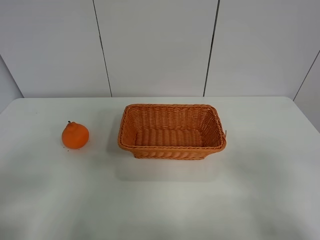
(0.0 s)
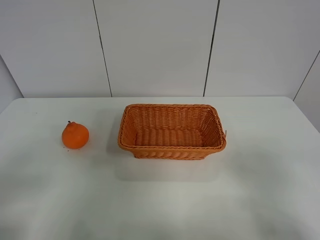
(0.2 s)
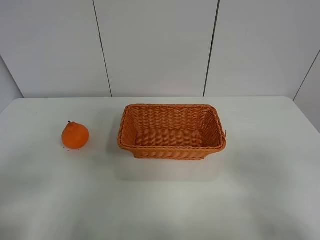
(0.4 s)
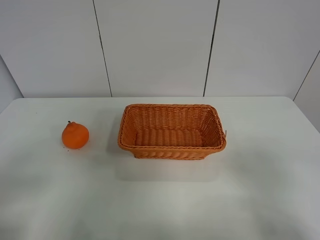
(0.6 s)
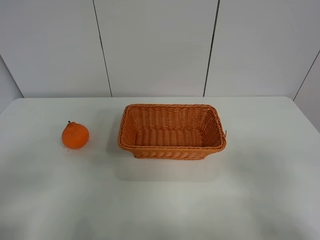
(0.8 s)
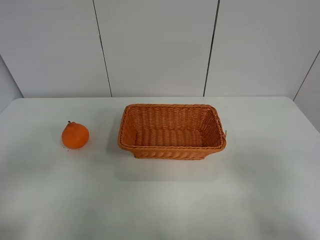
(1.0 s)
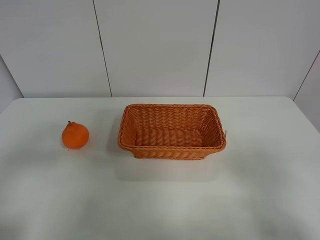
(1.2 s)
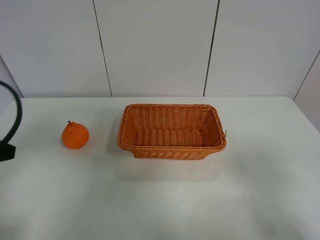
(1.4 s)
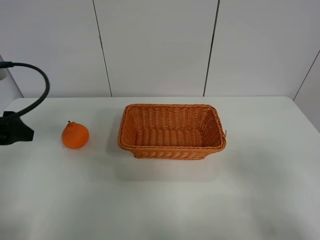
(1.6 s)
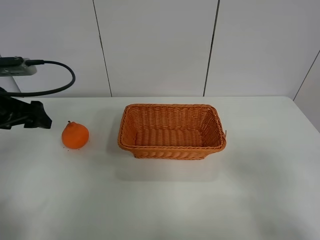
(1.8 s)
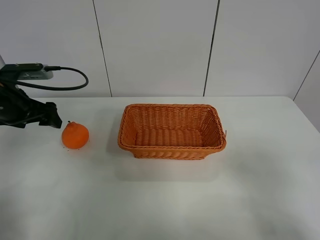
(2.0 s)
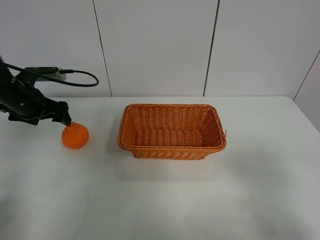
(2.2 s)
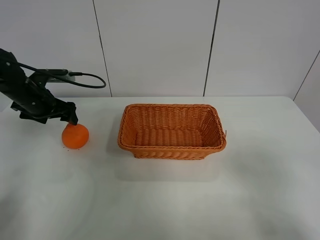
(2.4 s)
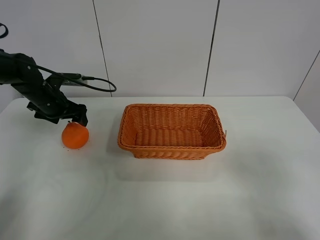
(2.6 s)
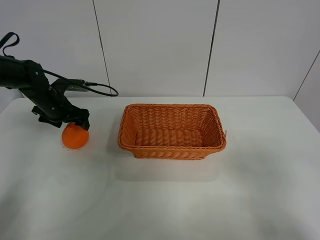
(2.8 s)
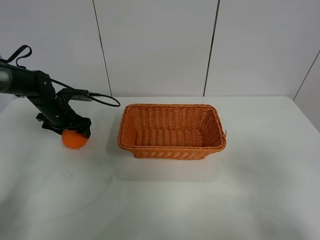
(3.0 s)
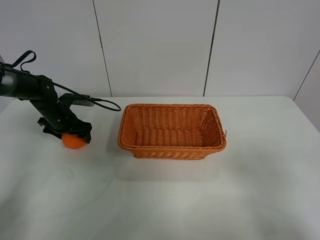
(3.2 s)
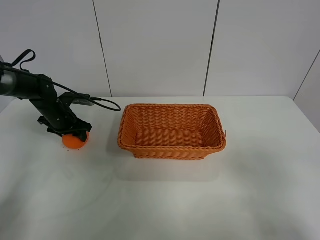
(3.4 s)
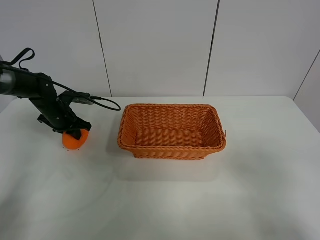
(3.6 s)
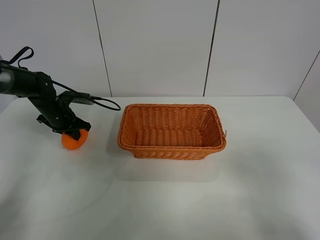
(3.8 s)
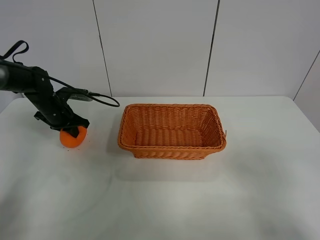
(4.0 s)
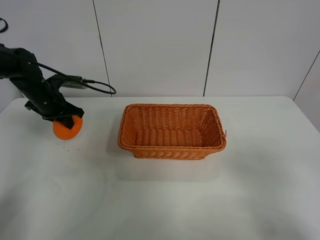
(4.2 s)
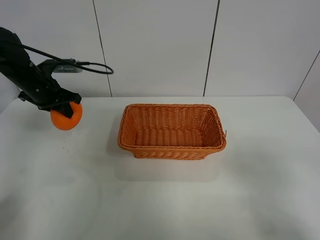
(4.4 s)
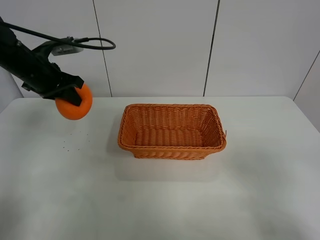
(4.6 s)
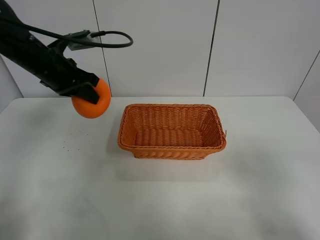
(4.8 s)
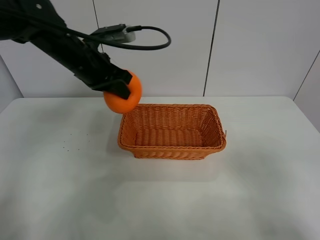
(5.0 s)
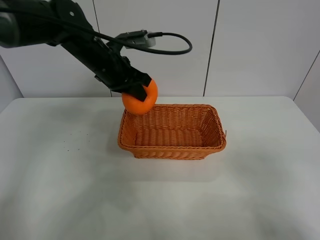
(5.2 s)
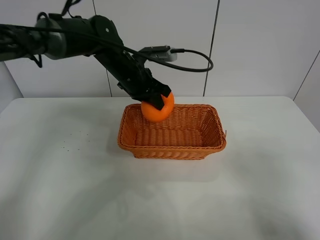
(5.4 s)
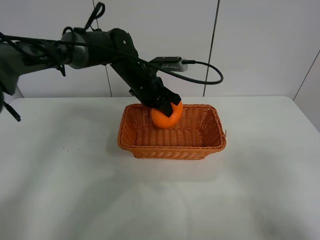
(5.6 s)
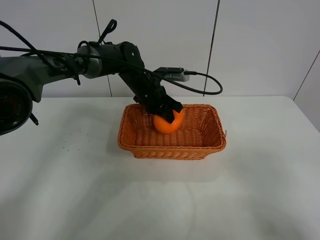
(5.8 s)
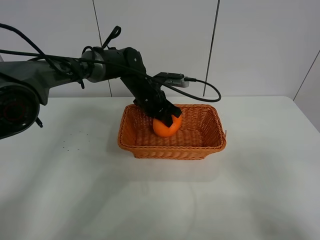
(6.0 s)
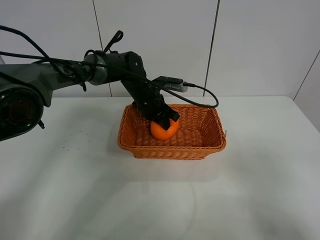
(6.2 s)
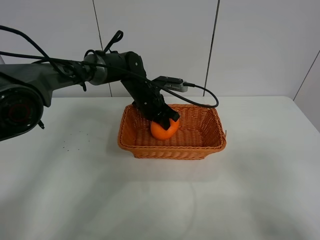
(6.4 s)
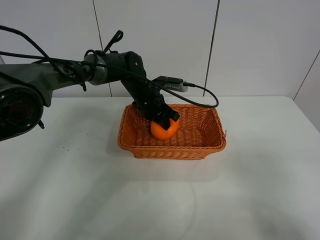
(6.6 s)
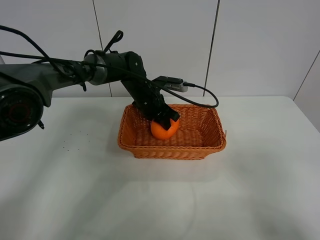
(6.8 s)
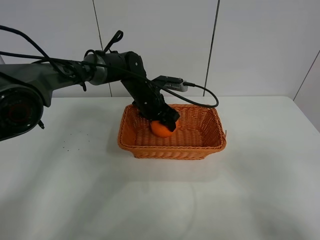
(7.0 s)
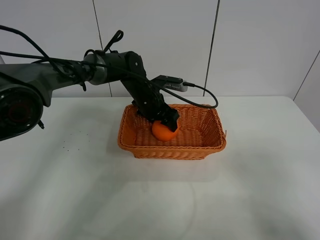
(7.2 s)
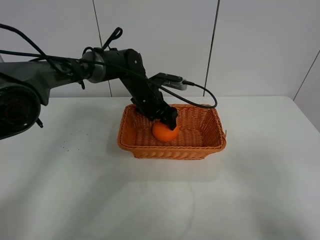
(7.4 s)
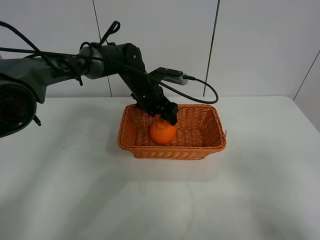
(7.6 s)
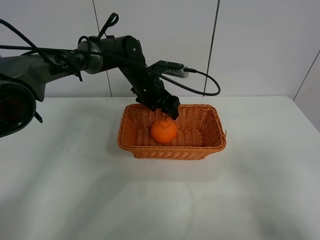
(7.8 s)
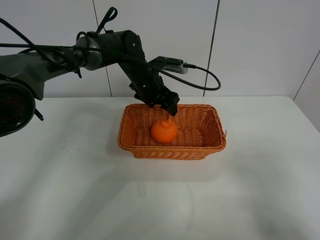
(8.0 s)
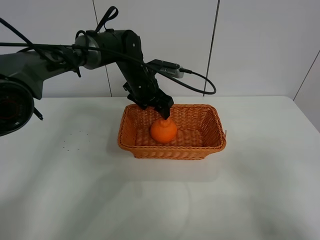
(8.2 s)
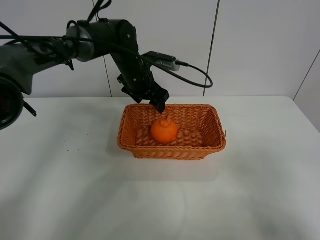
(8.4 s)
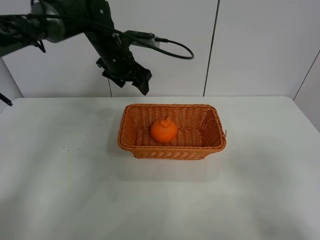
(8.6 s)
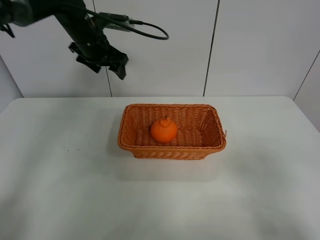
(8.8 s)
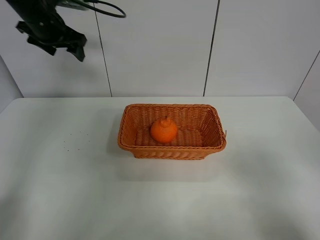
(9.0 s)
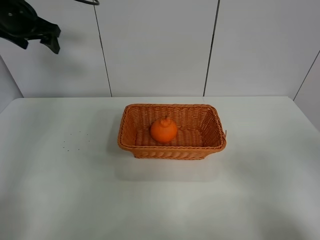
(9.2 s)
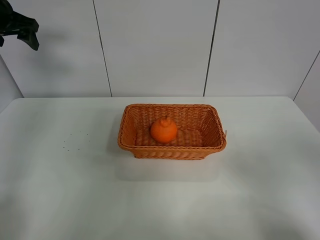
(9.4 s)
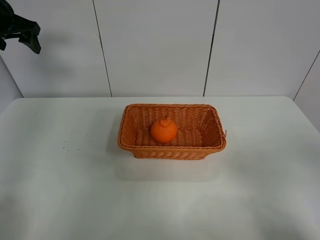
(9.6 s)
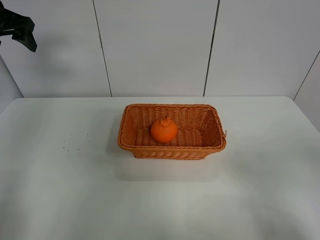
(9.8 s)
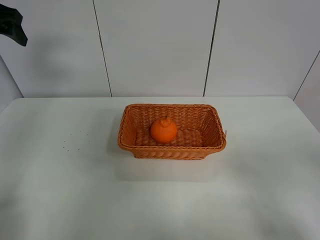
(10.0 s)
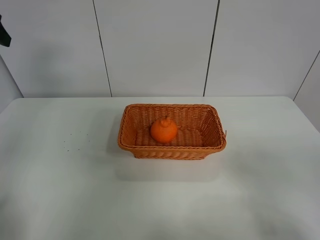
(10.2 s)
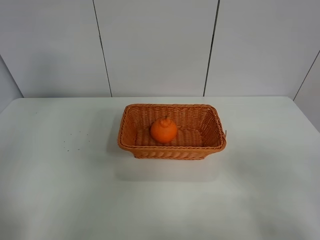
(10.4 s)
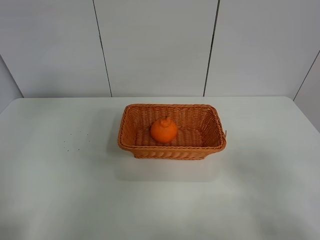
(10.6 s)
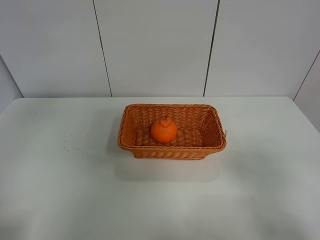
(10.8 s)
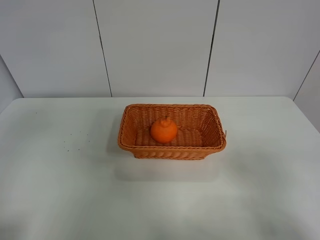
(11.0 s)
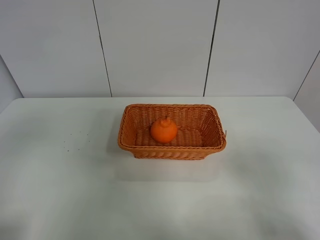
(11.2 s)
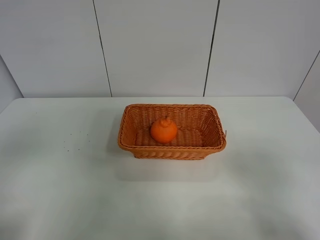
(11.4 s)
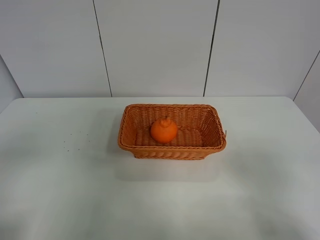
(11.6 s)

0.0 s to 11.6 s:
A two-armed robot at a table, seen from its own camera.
Task of the whole recording: left gripper grabs oranges and puts them in the basket.
Step, 0.0 to 3.8 s: Grasp the orange with left gripper.
Step, 4.0 to 8.8 s: Place the orange in the basket with left gripper.
0.0 to 1.4 s: The left gripper is displaced forward by roughly 15 cm.
1.4 to 2.8 s: The left gripper goes approximately 30 cm forward and downward.
2.8 to 4.4 s: The left gripper heads upward, covering some 10 cm, and closes.
4.4 to 5.8 s: The left gripper goes about 25 cm to the right.
5.8 to 7.2 s: The left gripper opens its fingers.
7.2 to 8.8 s: The left gripper moves upward and to the left, roughly 20 cm.
8.8 to 10.2 s: The left gripper is displaced backward, to the left and upward by roughly 25 cm.
10.2 to 11.6 s: The left gripper is displaced backward by about 25 cm.

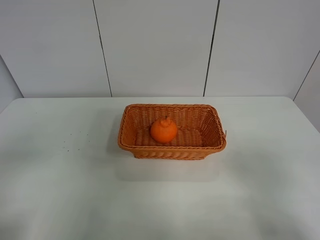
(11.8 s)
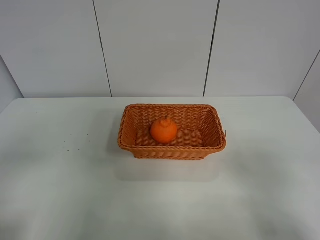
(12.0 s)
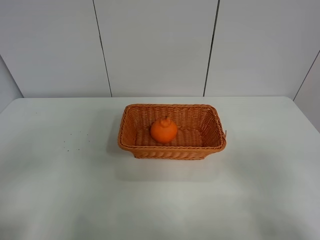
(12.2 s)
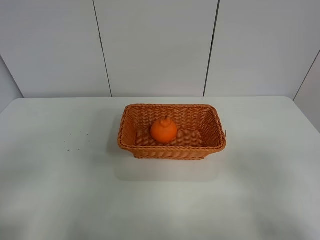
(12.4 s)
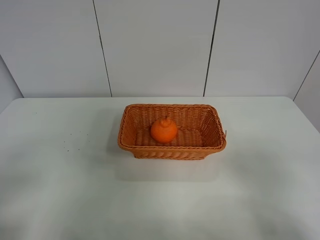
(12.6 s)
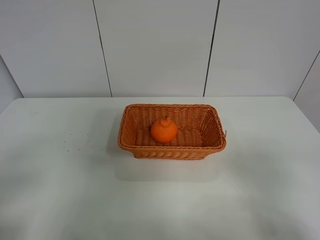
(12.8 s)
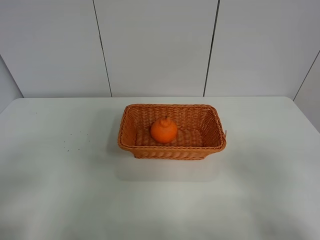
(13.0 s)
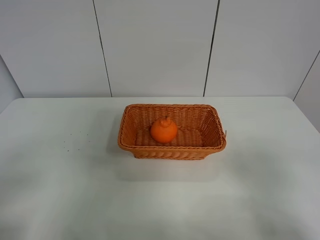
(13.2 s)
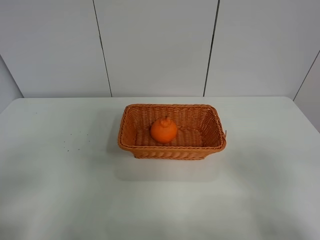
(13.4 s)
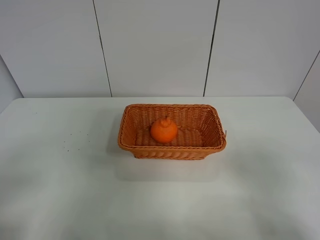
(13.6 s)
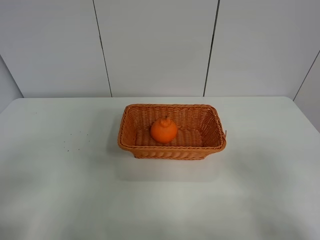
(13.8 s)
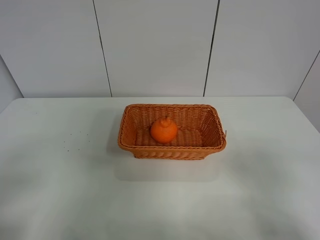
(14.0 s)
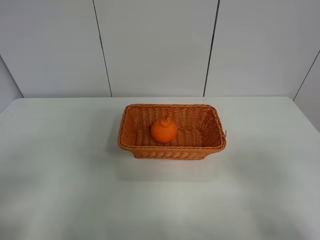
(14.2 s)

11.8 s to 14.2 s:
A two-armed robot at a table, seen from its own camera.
Task of the whole recording: left gripper grabs oranges and puts them in the basket.
13.0 to 14.2 s: Both grippers stay about where they are.

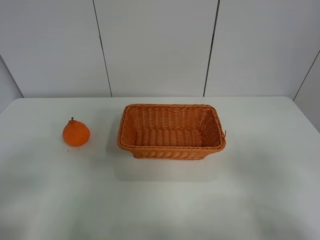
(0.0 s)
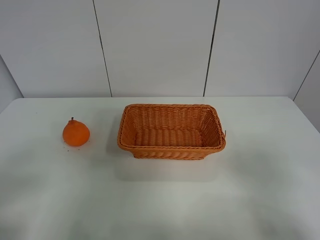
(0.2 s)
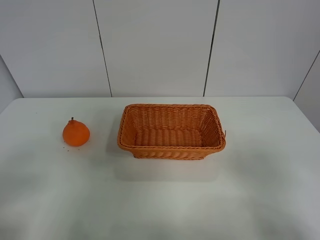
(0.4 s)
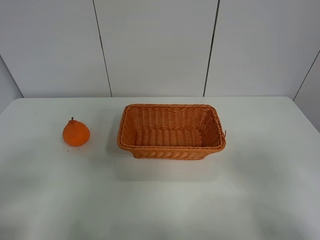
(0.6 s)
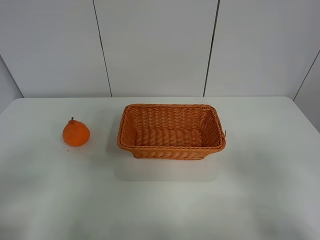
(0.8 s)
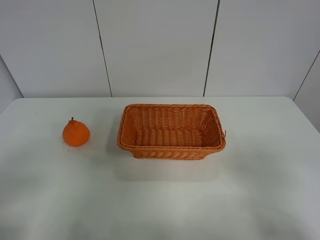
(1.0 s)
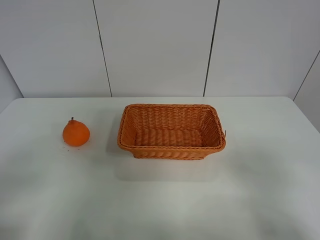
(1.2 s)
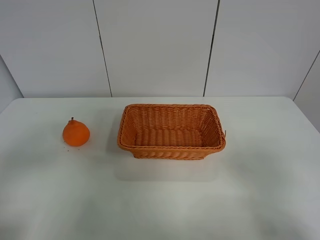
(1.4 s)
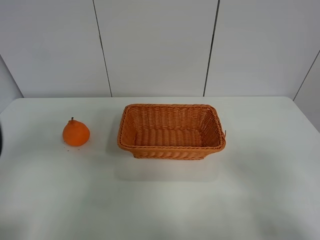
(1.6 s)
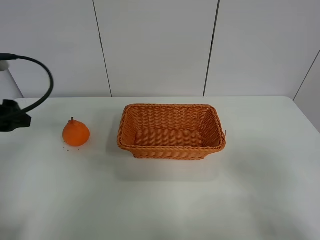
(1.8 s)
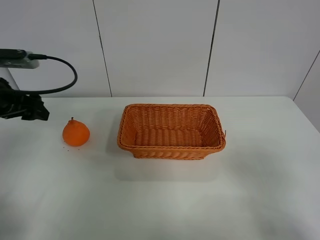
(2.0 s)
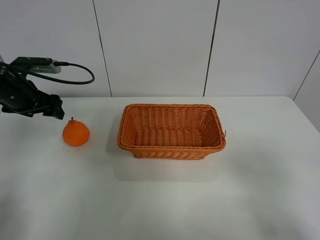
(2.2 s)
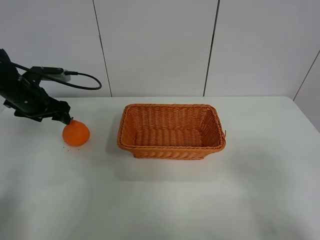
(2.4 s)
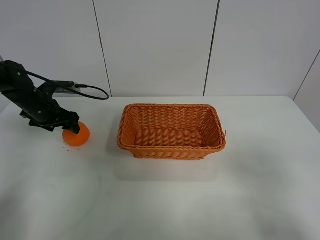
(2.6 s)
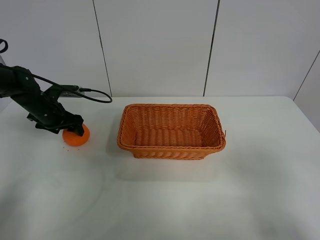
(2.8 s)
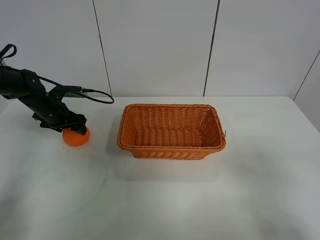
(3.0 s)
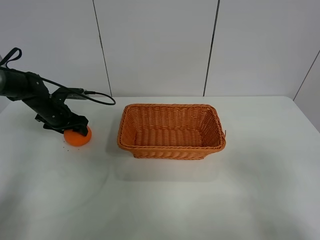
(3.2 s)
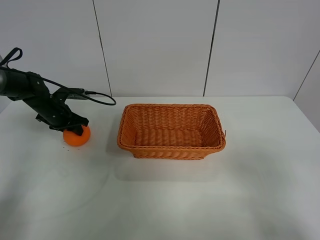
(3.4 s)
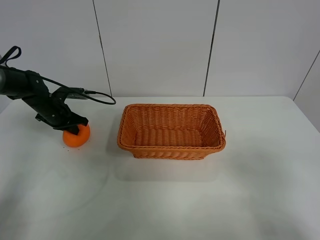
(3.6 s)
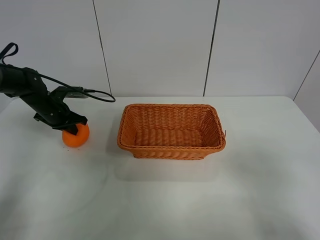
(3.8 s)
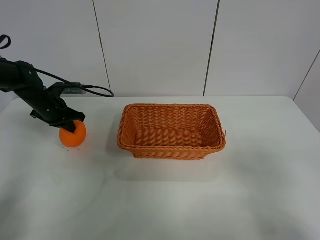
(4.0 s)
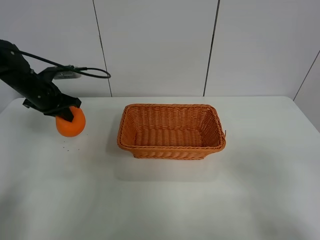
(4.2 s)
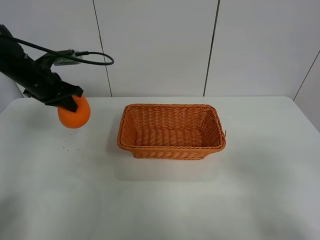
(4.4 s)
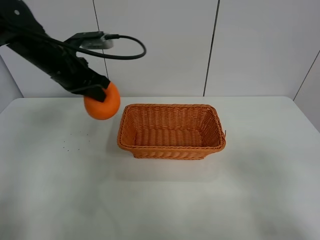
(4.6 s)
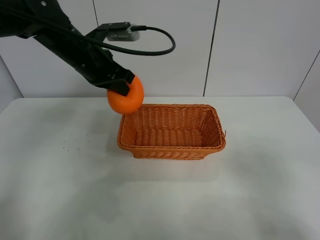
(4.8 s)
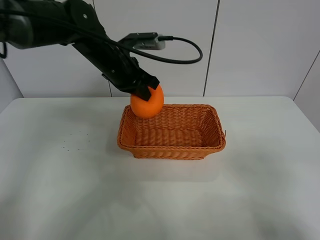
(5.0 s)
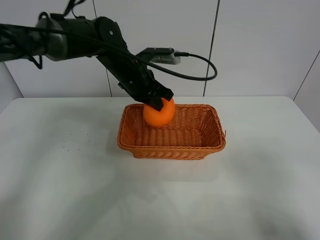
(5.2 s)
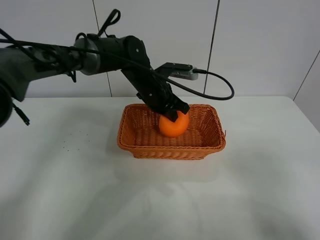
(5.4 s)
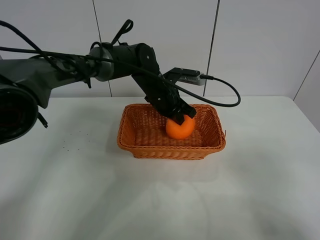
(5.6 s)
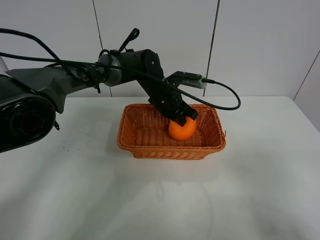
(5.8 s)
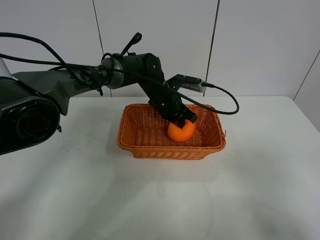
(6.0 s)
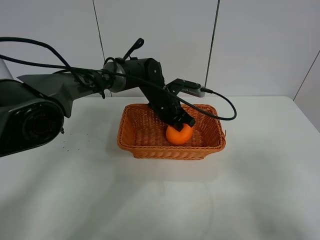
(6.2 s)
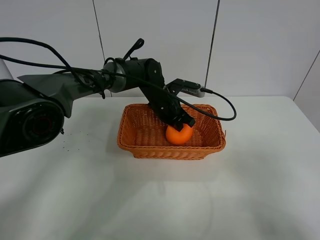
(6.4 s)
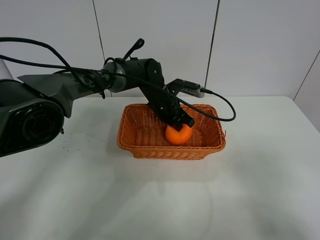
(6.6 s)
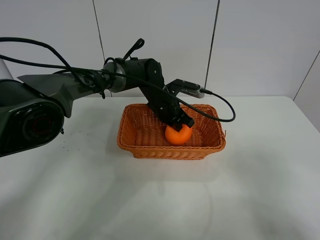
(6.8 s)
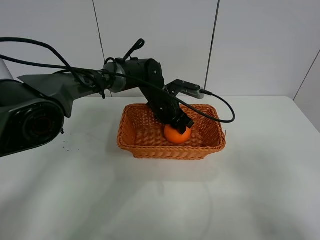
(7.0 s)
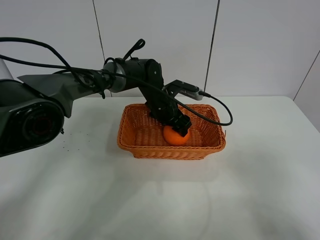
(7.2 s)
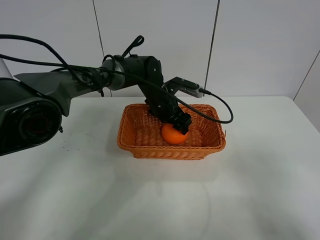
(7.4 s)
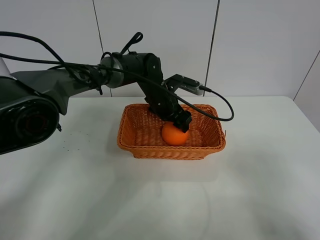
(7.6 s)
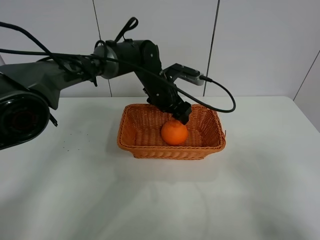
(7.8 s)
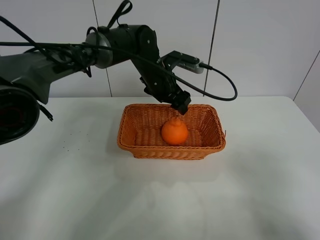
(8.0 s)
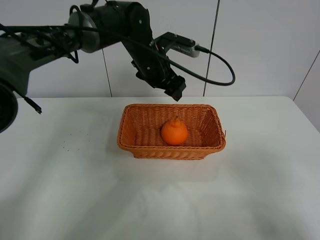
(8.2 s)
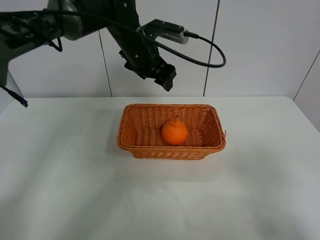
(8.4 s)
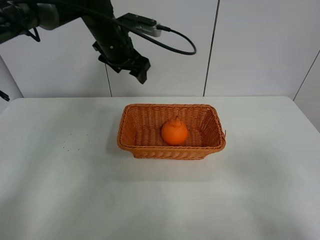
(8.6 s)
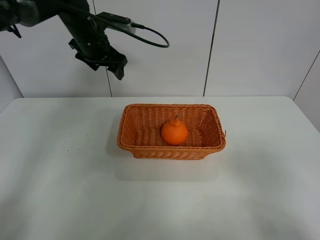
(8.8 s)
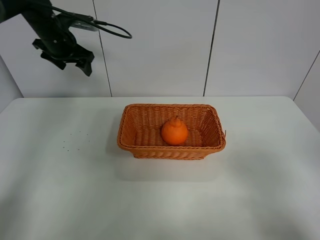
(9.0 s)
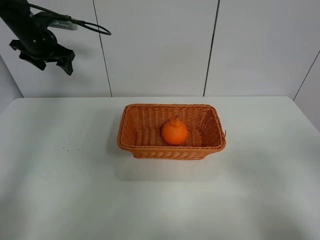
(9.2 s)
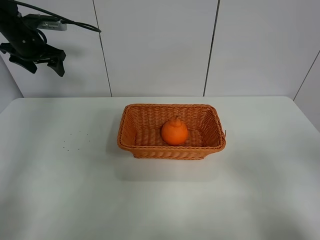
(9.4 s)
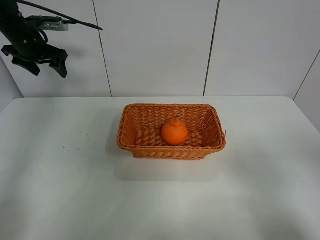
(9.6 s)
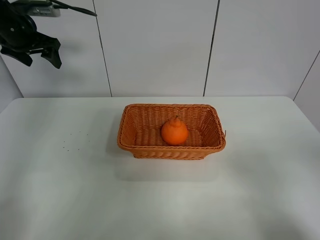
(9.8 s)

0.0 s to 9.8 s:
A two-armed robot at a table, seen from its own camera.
Task of the whole recording: left gripper grabs oranges and puts them in the basket.
Step, 0.0 to 3.6 s: Grasp the orange with left gripper.
Step, 3.8 to 8.8 s: Place the orange in the basket with left gripper.
1.4 to 2.8 s: The left gripper travels forward and downward by some 40 cm.
2.8 to 4.2 s: The left gripper moves upward, about 5 cm, and closes up.
4.2 to 5.6 s: The left gripper heads to the right, covering about 30 cm.
5.6 to 7.0 s: The left gripper opens its fingers.
7.0 to 8.4 s: The left gripper travels upward and to the left by approximately 15 cm.
8.4 to 9.8 s: The left gripper travels to the left by about 25 cm.
